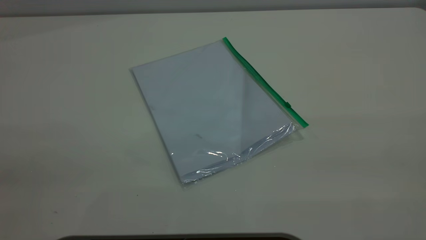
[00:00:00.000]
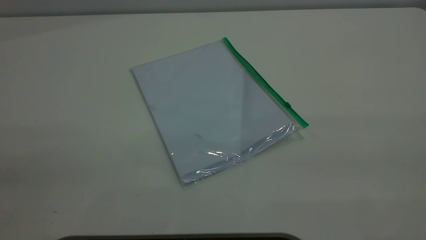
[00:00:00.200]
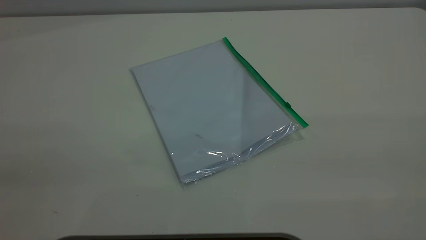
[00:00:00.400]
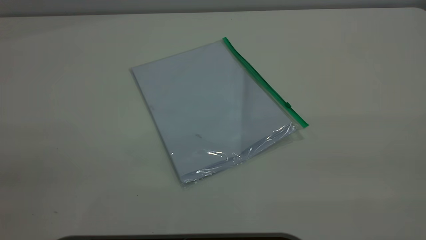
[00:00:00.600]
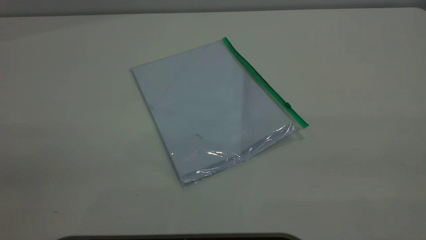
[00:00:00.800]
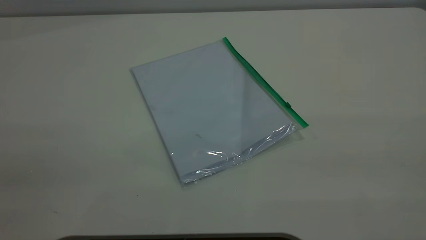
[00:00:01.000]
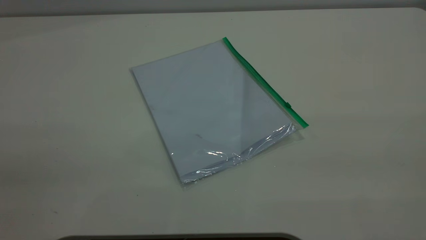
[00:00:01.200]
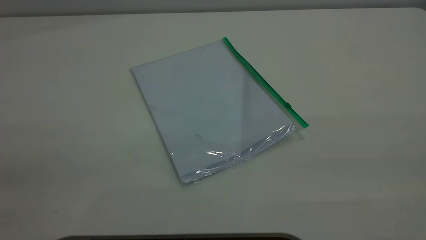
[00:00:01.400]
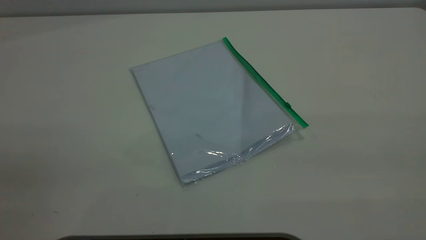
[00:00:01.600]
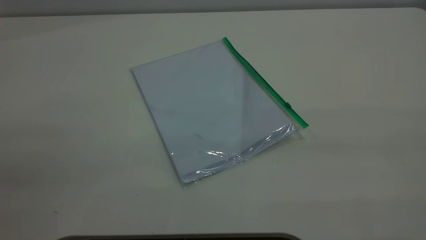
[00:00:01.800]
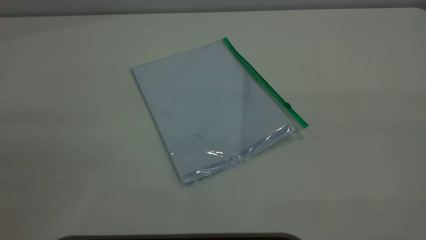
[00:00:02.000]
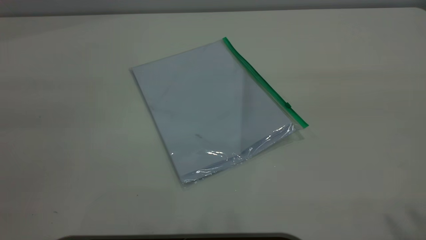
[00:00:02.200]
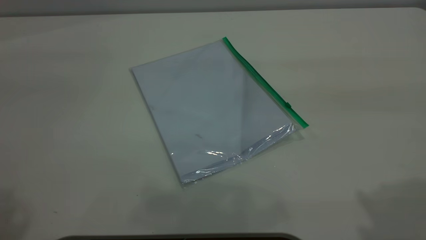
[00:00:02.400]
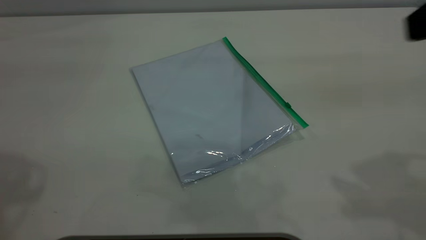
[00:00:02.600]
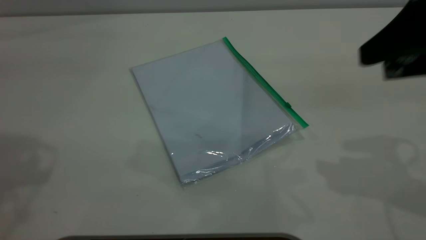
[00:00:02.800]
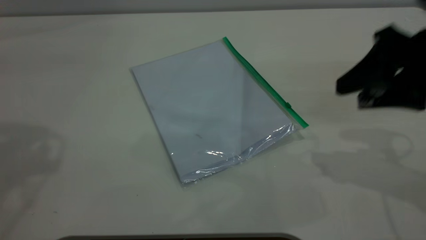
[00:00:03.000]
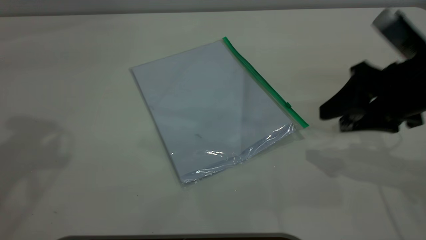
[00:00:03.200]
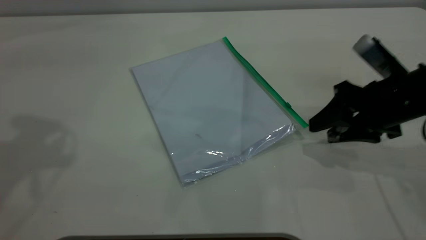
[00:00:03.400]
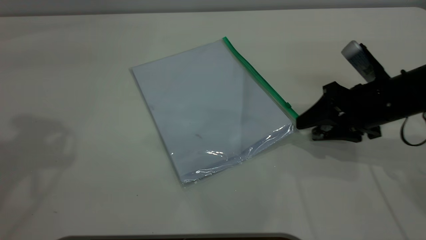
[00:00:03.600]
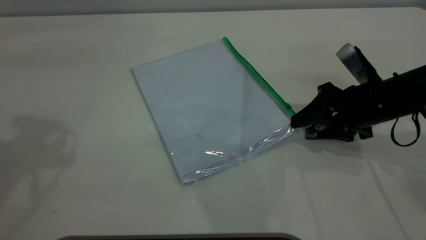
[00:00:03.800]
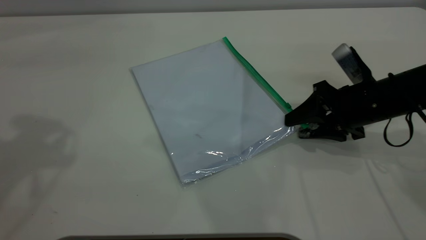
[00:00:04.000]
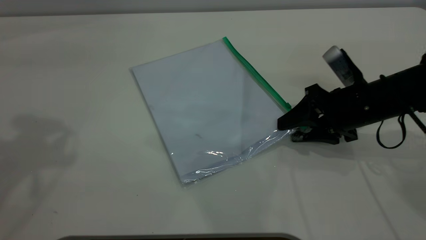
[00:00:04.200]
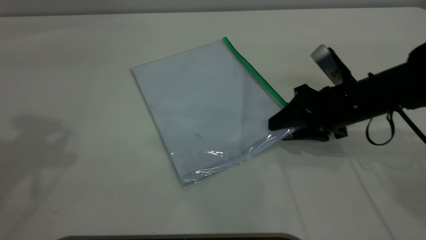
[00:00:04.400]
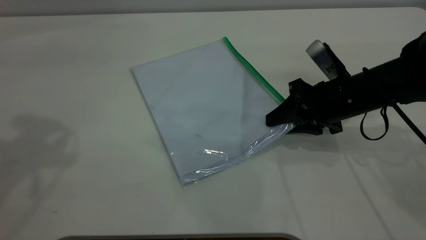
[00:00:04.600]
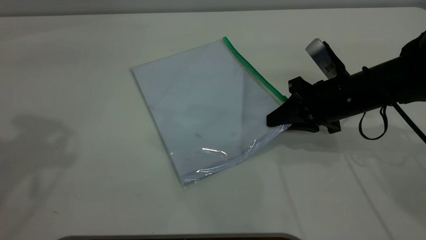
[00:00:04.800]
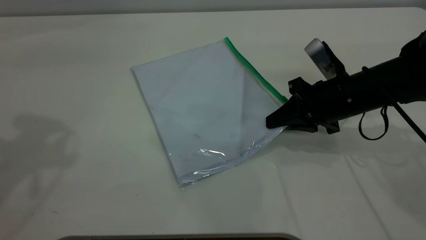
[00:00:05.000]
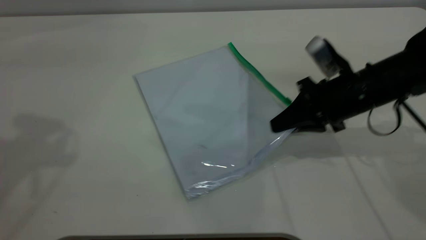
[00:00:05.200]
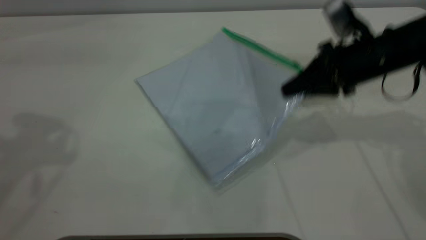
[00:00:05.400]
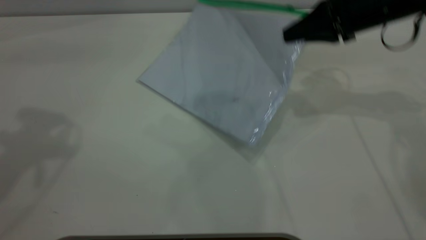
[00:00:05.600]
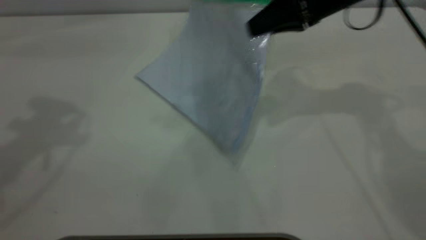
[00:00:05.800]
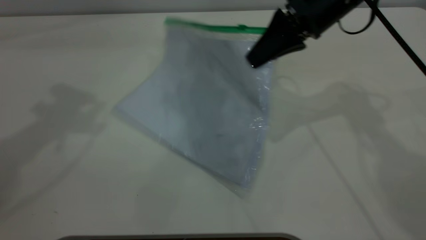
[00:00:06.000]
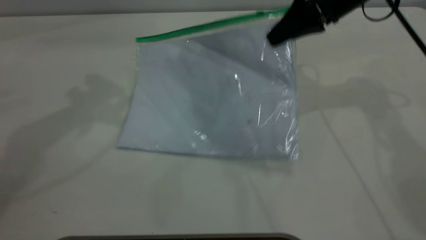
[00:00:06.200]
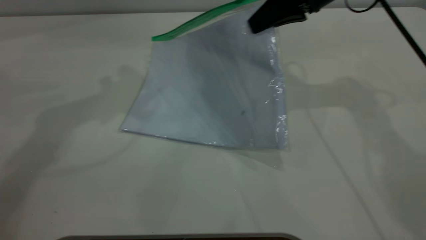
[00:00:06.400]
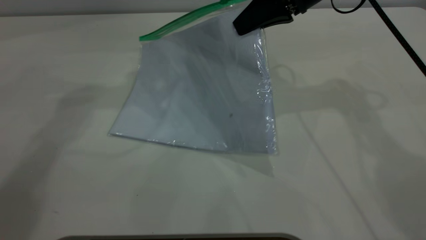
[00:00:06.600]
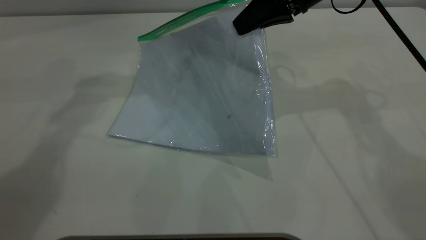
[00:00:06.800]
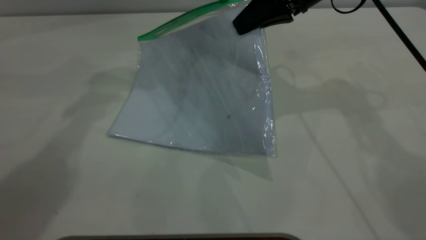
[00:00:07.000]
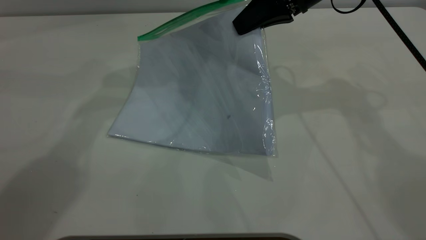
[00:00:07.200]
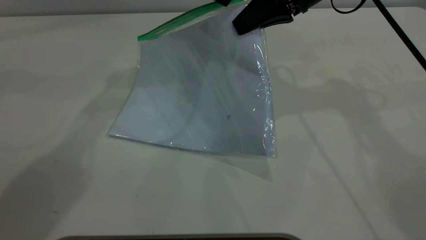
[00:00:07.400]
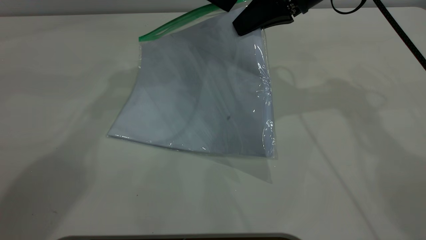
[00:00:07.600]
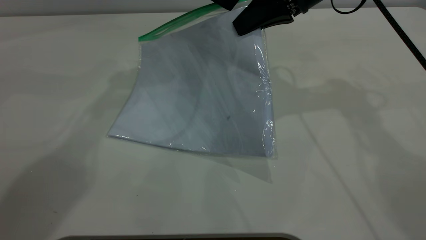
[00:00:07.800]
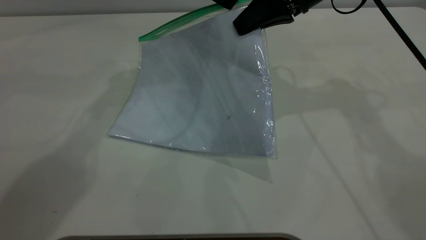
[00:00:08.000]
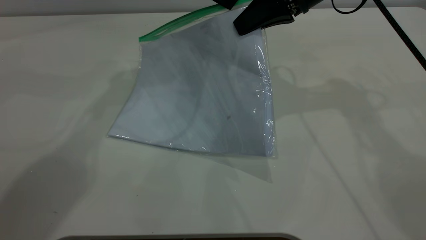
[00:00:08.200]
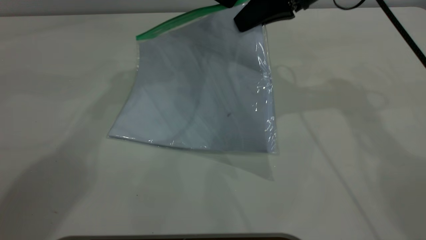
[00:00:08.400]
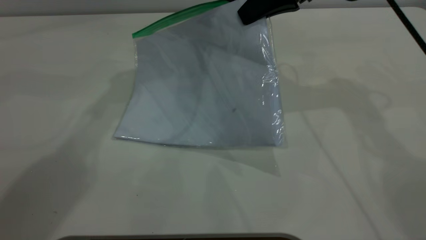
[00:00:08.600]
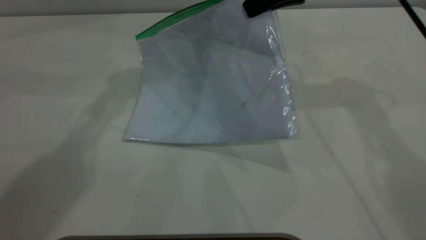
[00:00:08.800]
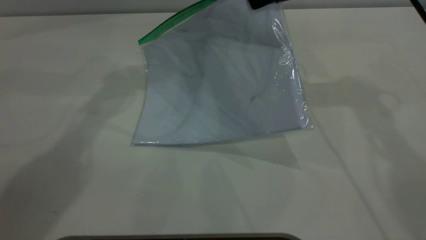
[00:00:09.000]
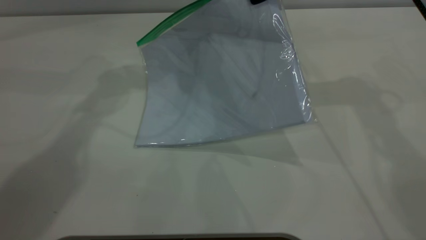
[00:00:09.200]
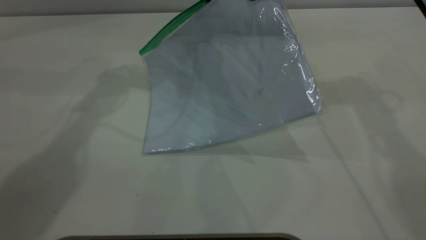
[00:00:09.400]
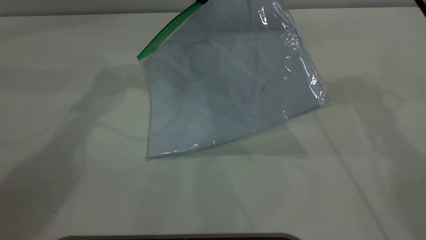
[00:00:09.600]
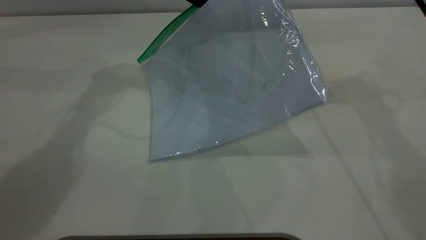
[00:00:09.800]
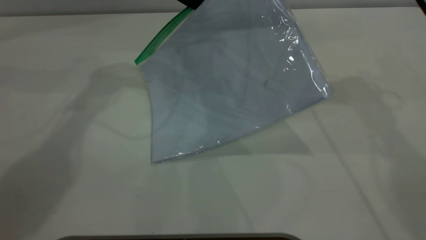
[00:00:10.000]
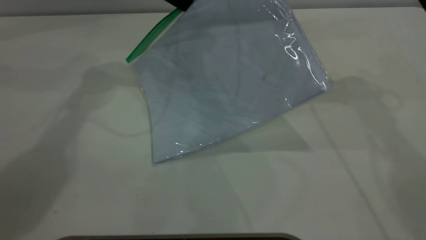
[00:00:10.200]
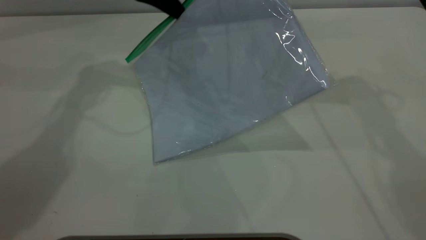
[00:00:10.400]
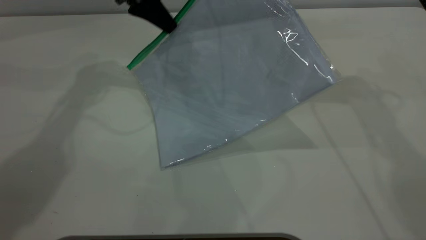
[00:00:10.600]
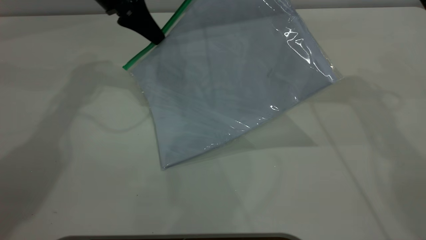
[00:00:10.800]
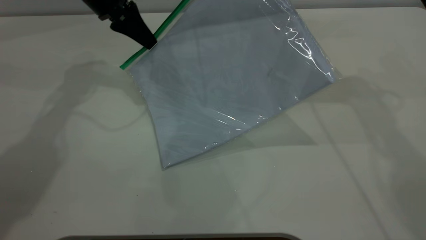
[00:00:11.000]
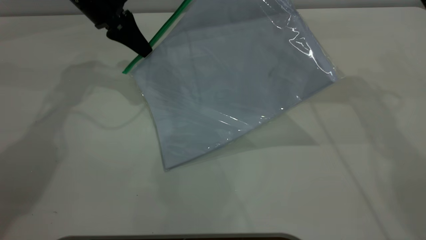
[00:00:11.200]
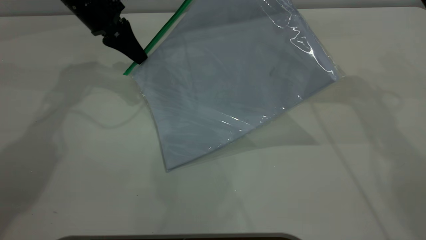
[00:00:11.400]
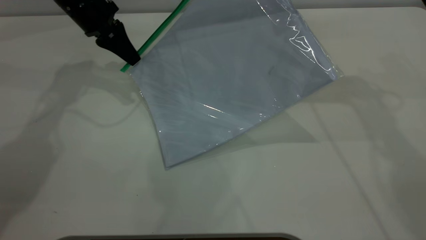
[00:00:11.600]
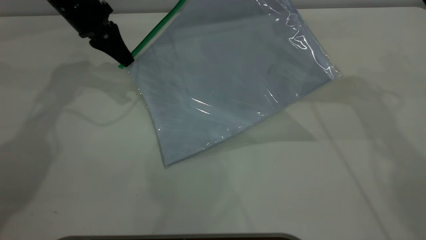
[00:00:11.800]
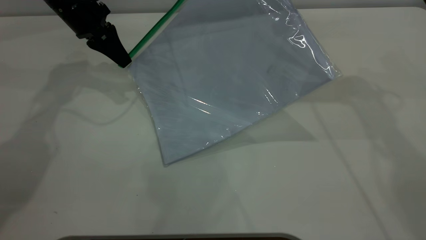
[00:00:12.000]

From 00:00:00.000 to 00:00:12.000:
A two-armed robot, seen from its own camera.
Step, from 00:00:00.000 to 00:00:05.200: Pick up the transparent plastic bag with the right gripper.
From 00:00:00.000 to 00:00:01.600: Both grippers stay put.
From 00:00:01.600 to 00:00:03.000: The right gripper travels forward and downward by some 30 cm.
From 00:00:03.000 to 00:00:04.400: The right gripper heads downward and forward, covering approximately 15 cm.
From 00:00:04.400 to 00:00:06.000: The left gripper travels forward by approximately 5 cm, while the right gripper travels upward and forward by some 15 cm, and closes its fingers.
From 00:00:06.000 to 00:00:07.600: The left gripper moves to the right, downward and forward, about 25 cm.
From 00:00:07.600 to 00:00:09.000: The left gripper closes up.
From 00:00:09.000 to 00:00:10.400: The left gripper goes some 5 cm to the left.
From 00:00:10.400 to 00:00:12.000: The left gripper goes roughly 10 cm to the left and downward.

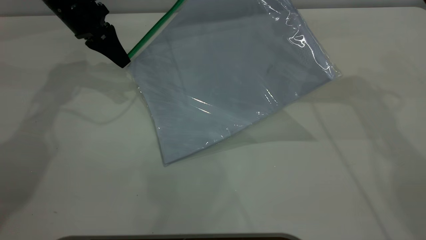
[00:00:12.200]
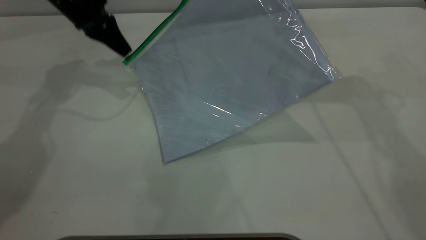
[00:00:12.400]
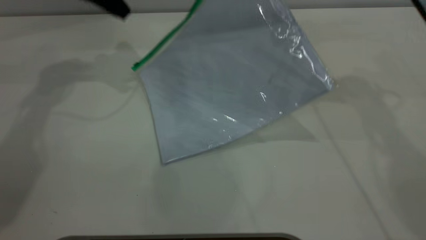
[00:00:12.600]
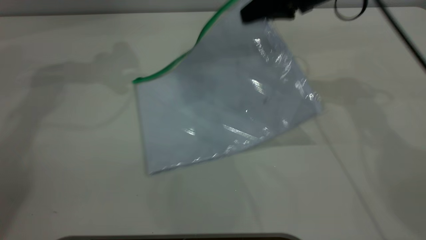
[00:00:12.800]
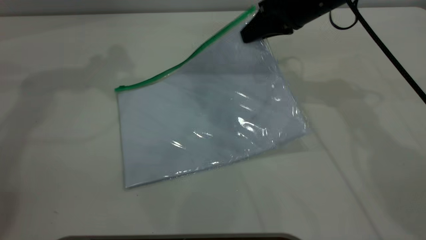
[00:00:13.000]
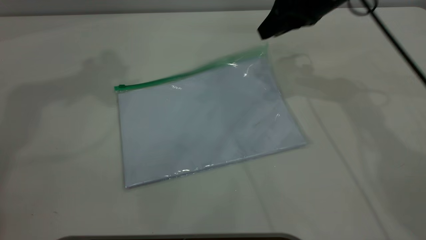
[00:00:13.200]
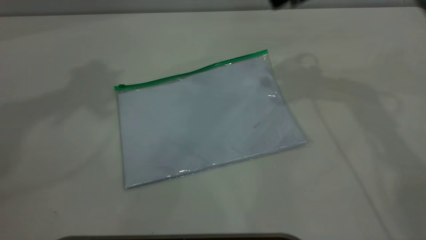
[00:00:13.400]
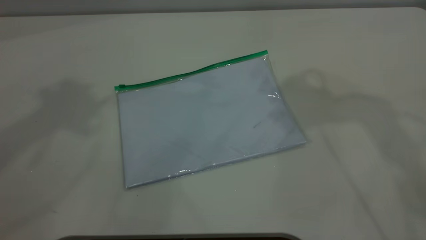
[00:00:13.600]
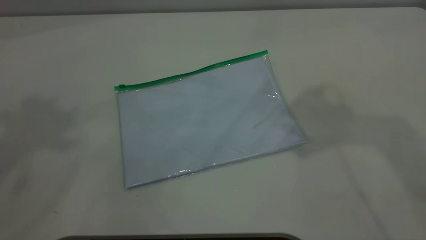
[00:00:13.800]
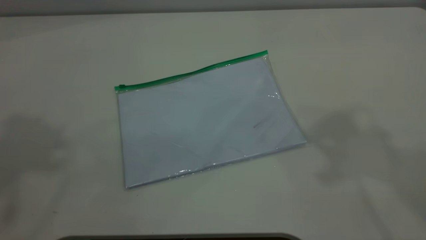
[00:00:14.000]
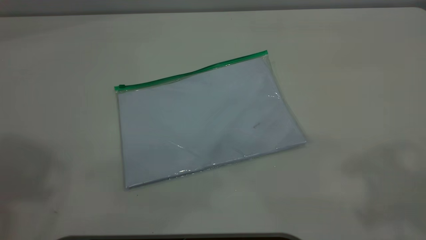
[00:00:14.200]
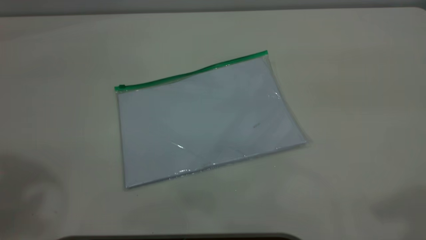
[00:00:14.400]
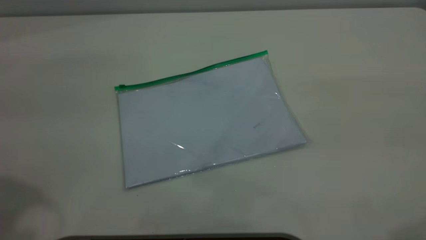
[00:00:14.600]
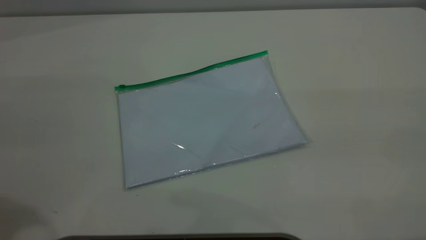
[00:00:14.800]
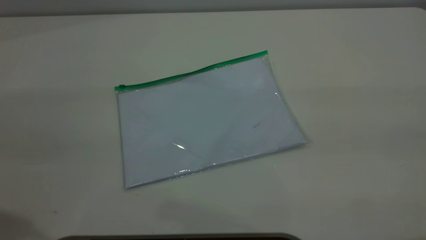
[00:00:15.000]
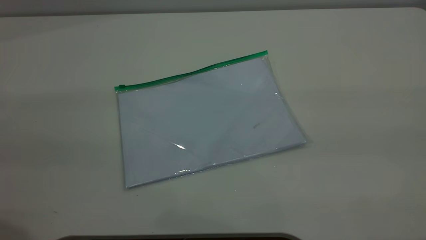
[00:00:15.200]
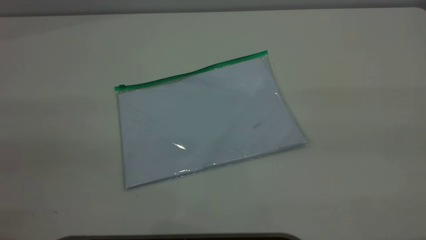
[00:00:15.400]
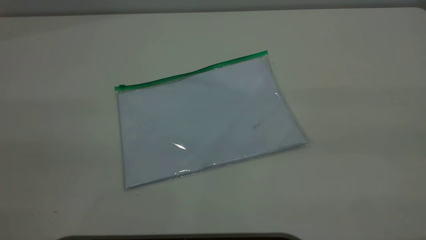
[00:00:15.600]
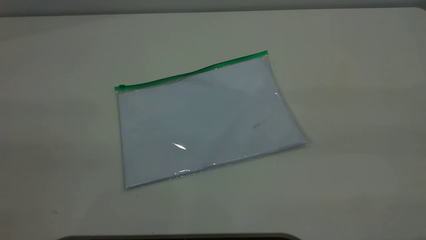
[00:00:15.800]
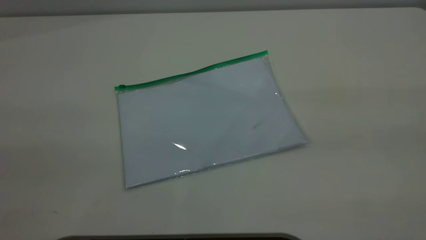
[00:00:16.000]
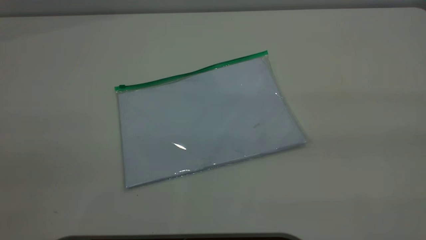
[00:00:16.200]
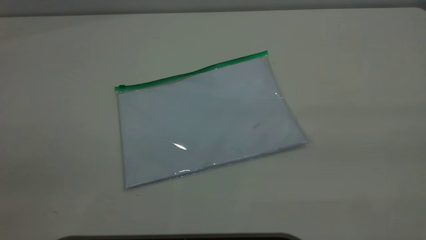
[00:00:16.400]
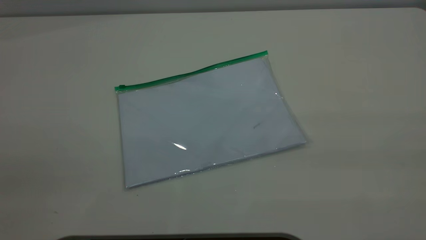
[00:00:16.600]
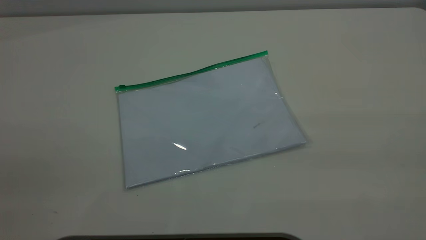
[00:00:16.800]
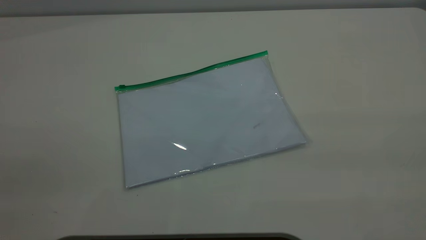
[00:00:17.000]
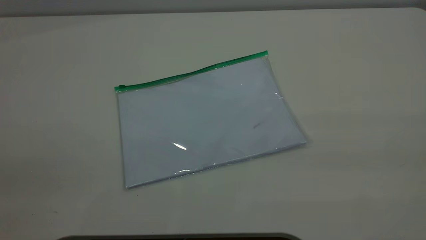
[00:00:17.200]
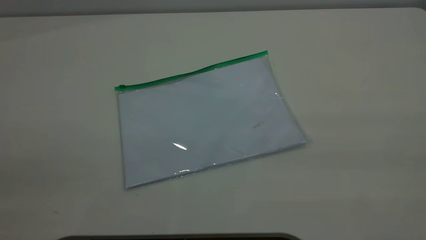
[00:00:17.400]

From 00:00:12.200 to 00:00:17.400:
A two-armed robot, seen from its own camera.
Step, from 00:00:12.600 to 00:00:13.200: Place the transparent plastic bag.
From 00:00:12.200 to 00:00:14.000: The right gripper is displaced upward and backward by some 30 cm, and opens its fingers, while the left gripper is displaced upward and backward by approximately 50 cm, and opens up.
